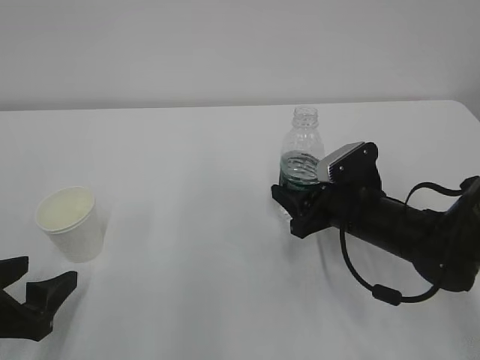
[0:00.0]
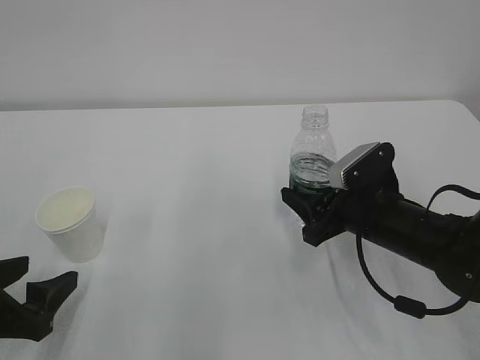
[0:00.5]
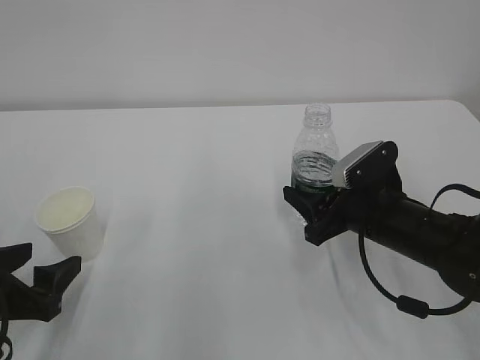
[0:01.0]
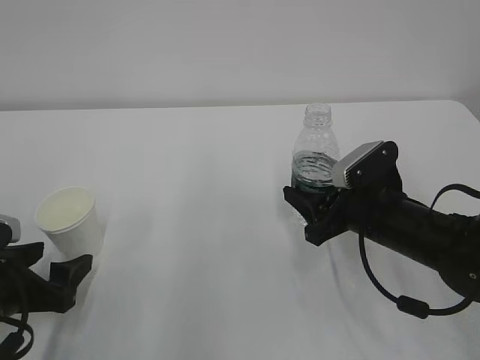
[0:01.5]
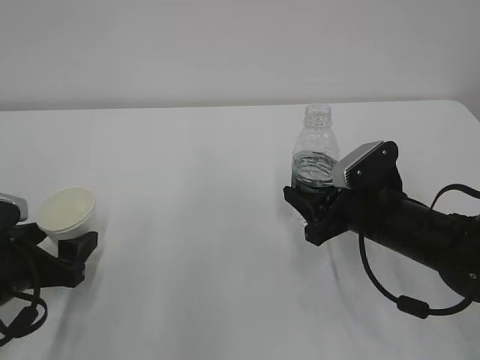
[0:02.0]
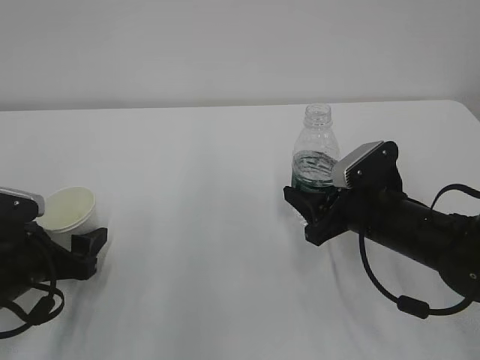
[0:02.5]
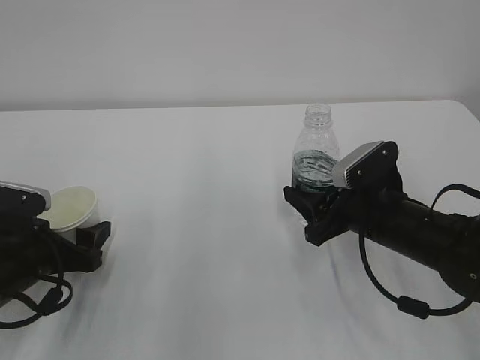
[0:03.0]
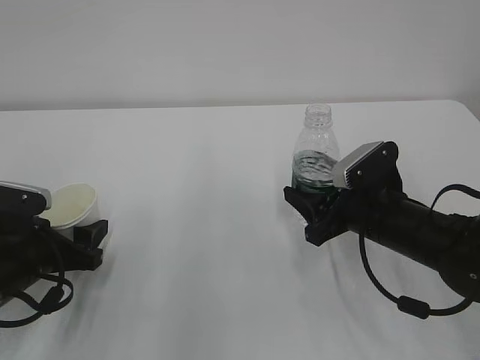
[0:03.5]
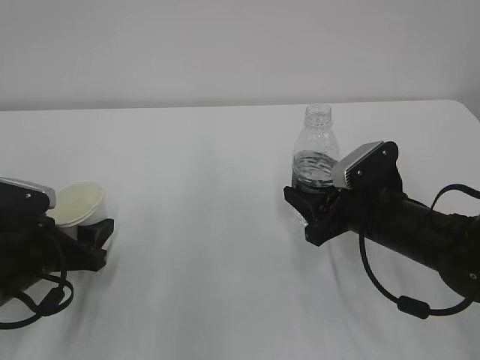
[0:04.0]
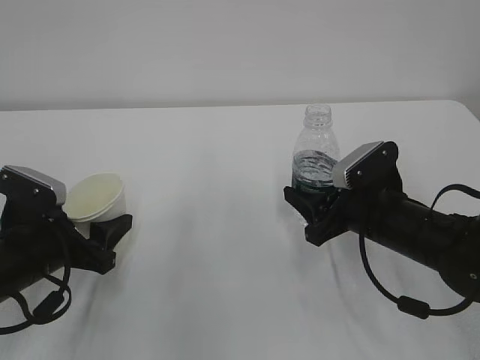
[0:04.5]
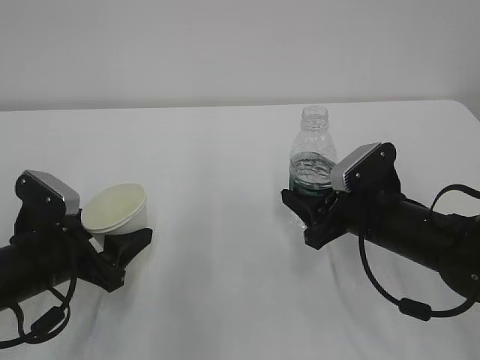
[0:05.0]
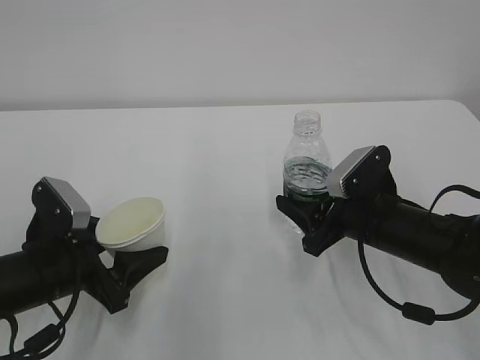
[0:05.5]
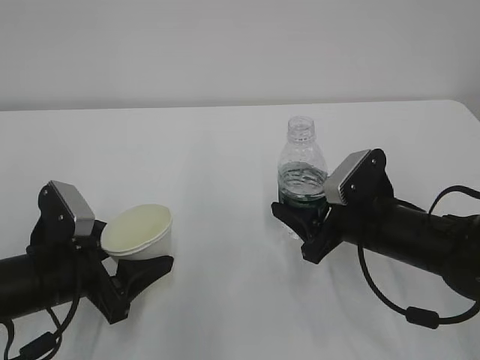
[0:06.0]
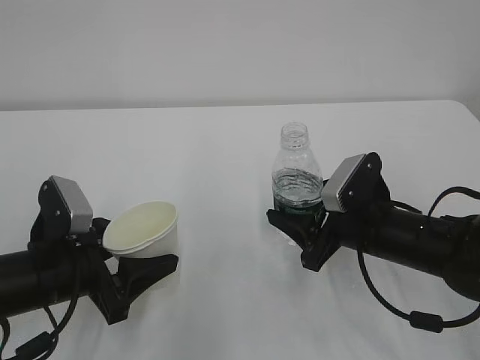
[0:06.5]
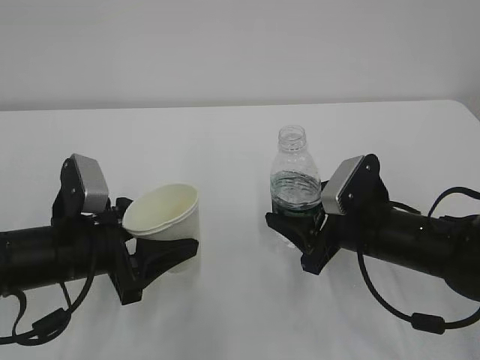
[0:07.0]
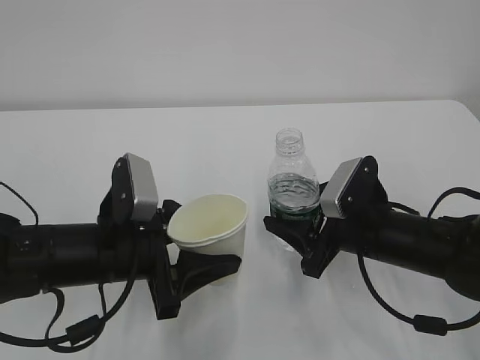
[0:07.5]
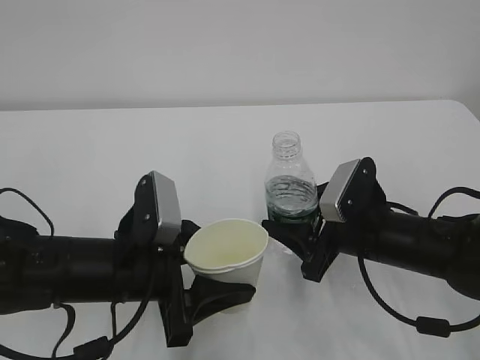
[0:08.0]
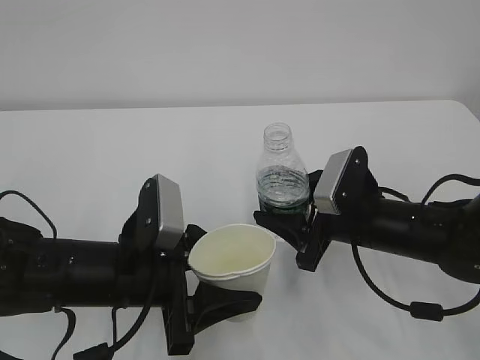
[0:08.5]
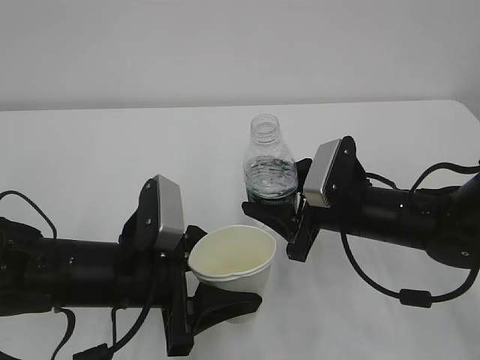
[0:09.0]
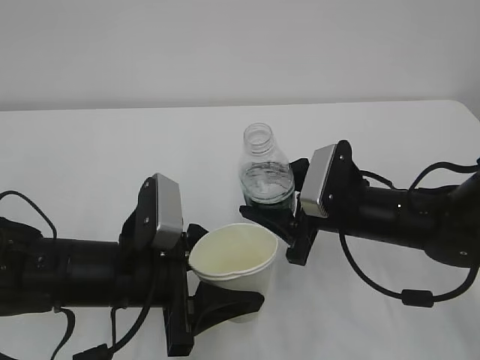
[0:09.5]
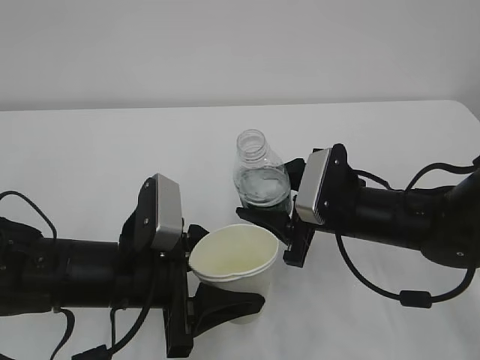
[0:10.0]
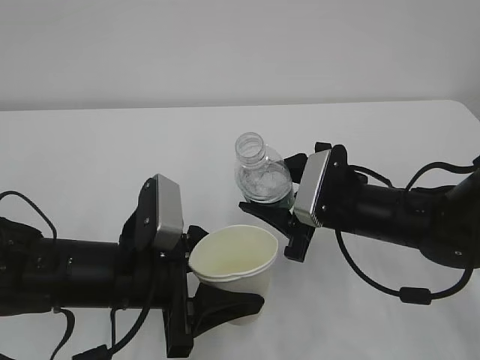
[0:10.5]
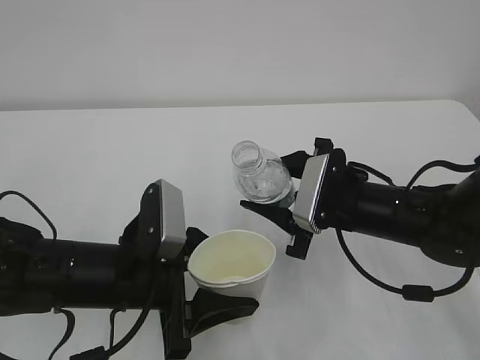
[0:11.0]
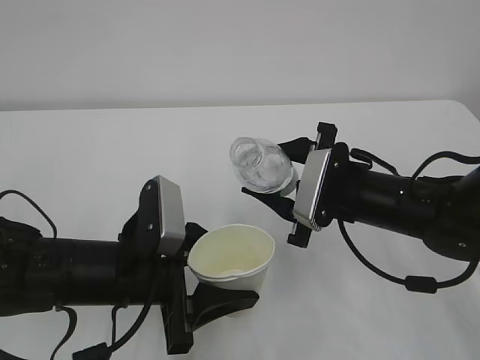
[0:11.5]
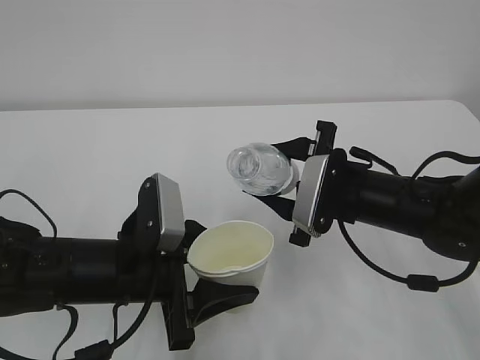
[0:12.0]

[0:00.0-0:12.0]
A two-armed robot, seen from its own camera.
0:00.0 to 0:02.0: The left gripper is displaced forward by some 5 cm.
0:02.0 to 0:04.0: The left gripper closes.
0:04.0 to 0:06.0: The left gripper shifts by roughly 5 cm.
0:06.0 to 0:08.0: The left gripper goes roughly 10 cm to the right.
0:08.0 to 0:10.0: The grippers make only small movements.

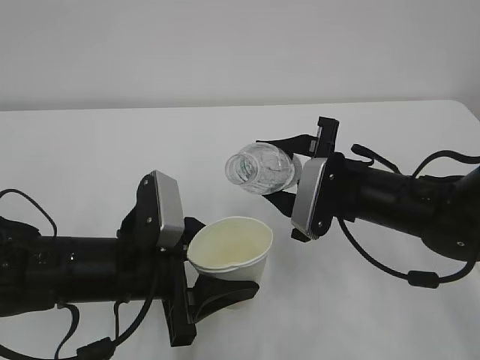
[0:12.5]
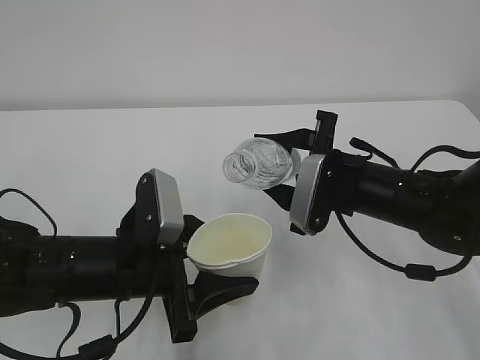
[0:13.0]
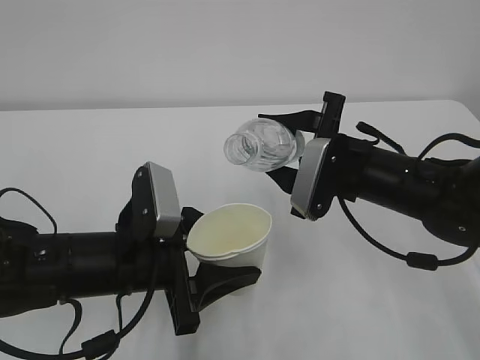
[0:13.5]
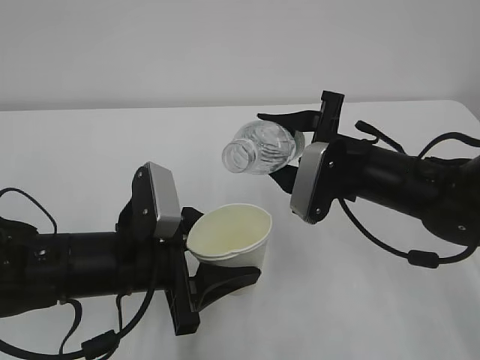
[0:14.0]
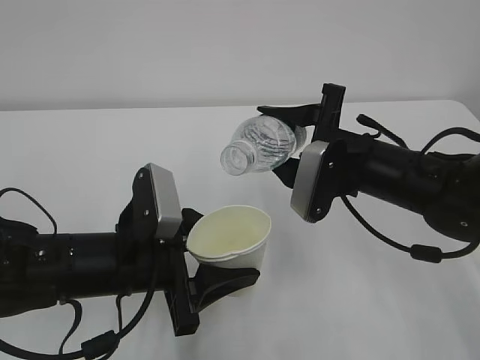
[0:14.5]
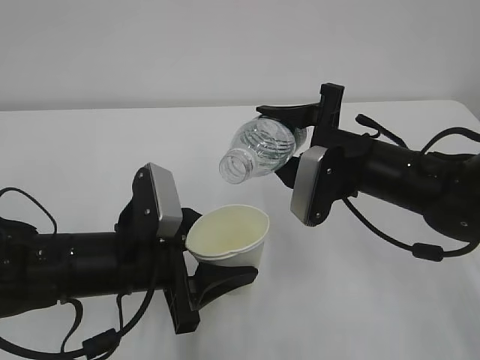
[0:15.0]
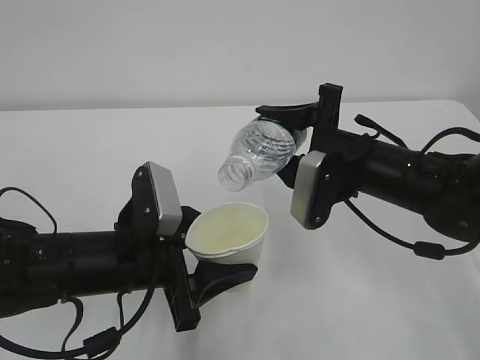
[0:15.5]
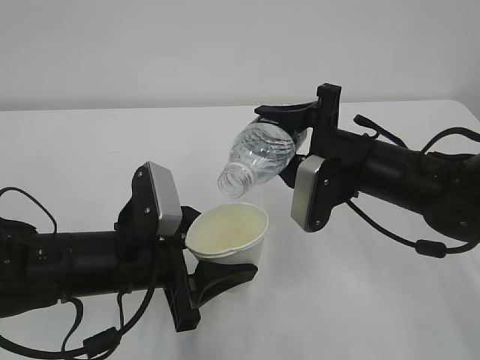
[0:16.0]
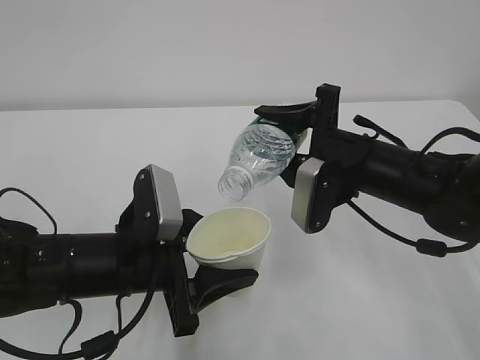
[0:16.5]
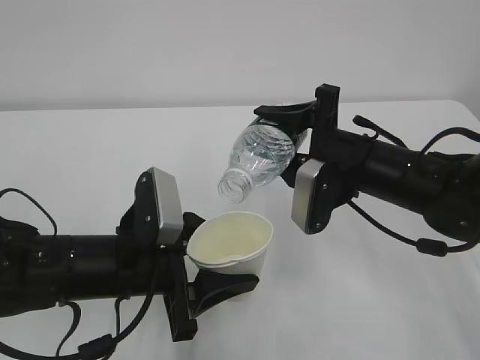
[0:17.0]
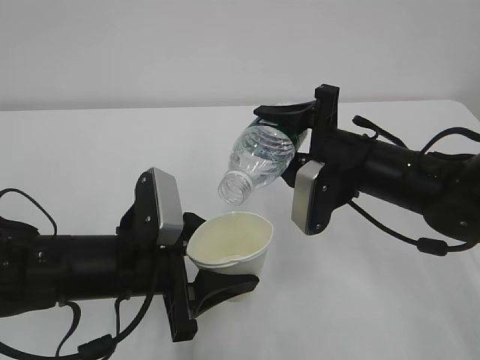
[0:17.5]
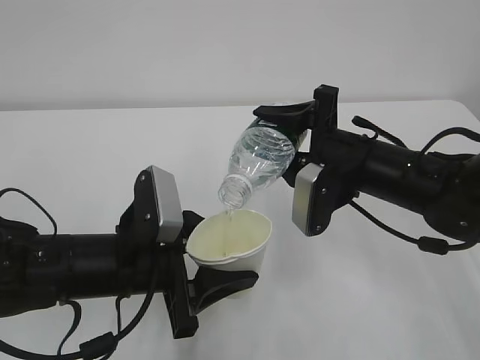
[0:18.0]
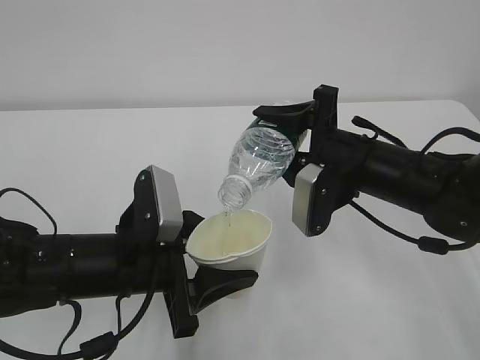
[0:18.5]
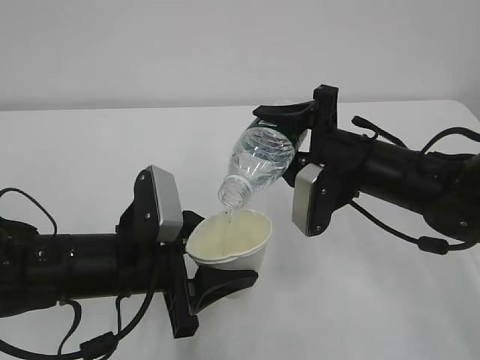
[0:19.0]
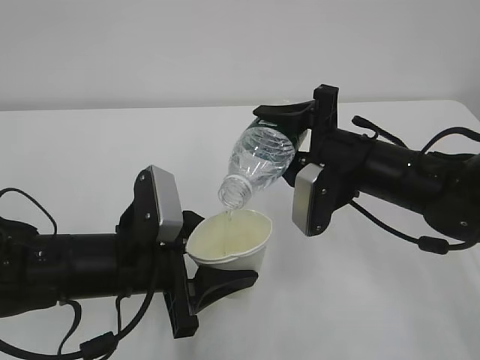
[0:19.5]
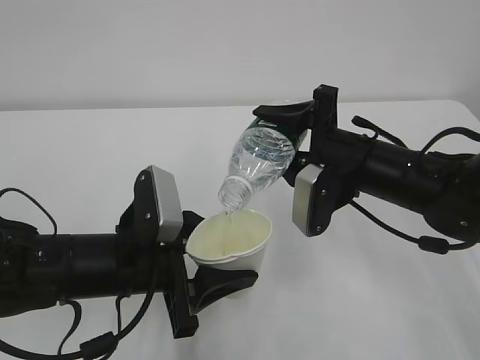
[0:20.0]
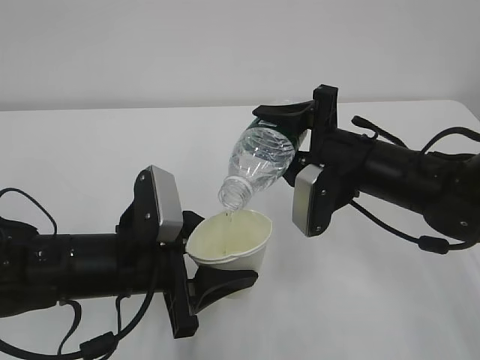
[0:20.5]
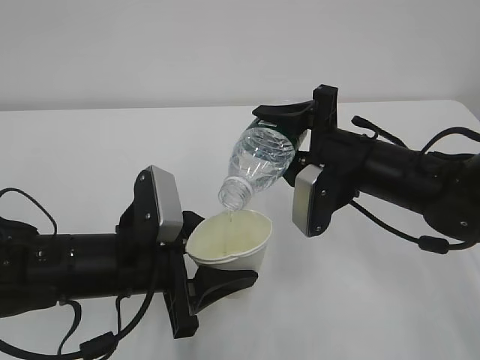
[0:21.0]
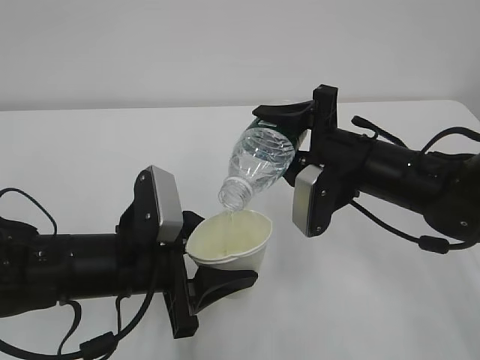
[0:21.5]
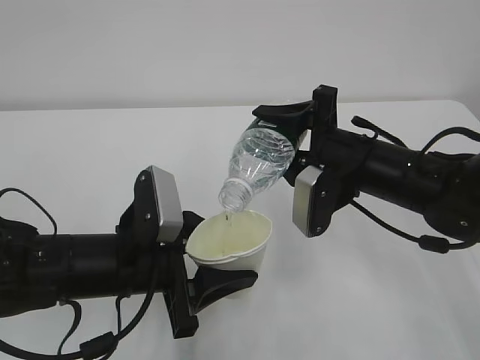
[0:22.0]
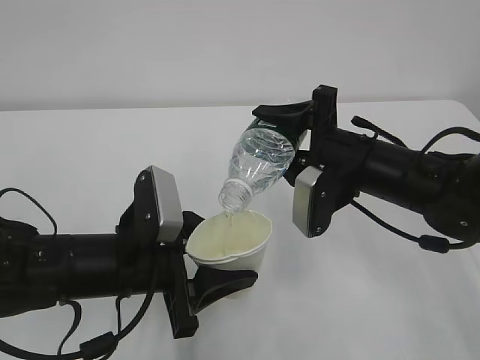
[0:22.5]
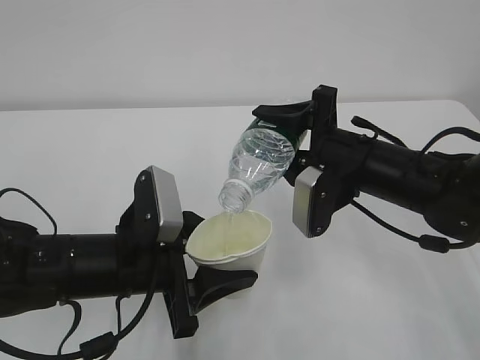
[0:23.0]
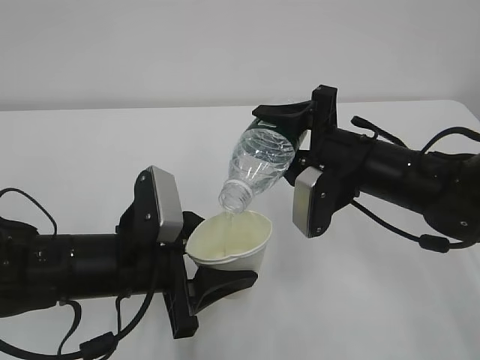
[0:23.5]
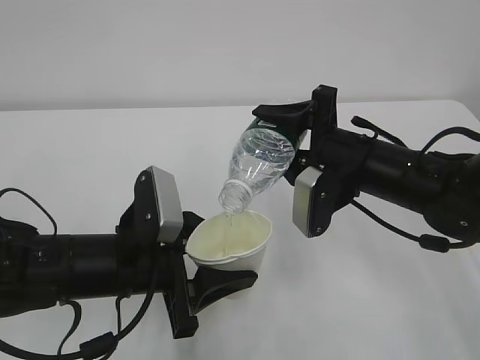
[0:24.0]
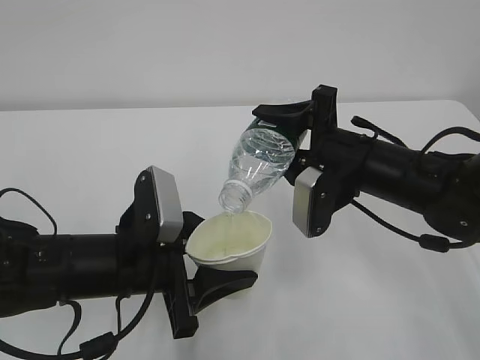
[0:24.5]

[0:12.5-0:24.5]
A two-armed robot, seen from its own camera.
0:12.5 to 0:14.5: The grippers stay close to where they were, moving slightly.
0:14.5 to 0:16.5: The grippers move only a little.
0:16.5 to 0:18.5: The two grippers keep their place.
0:18.5 to 0:24.5: Both grippers stay about where they are.

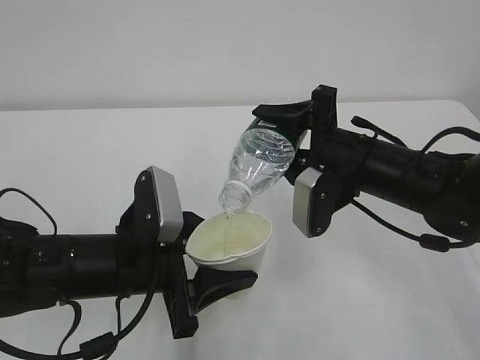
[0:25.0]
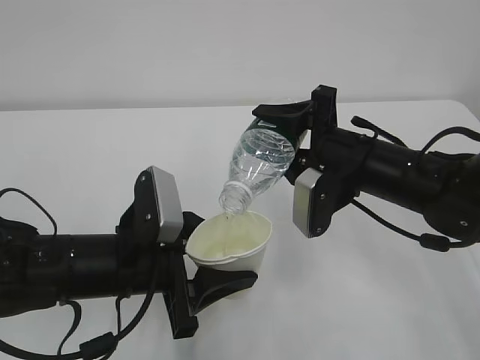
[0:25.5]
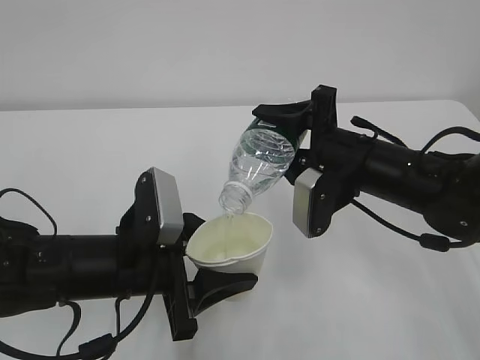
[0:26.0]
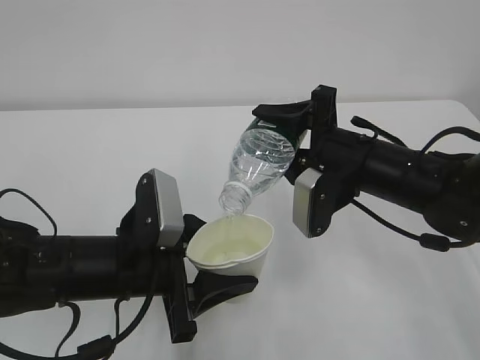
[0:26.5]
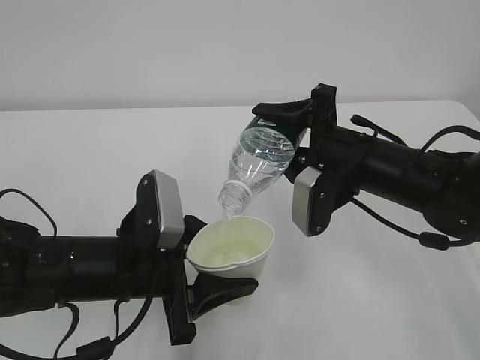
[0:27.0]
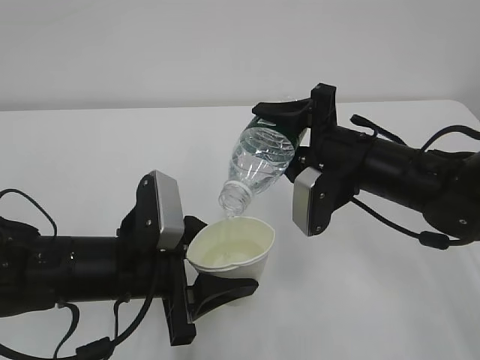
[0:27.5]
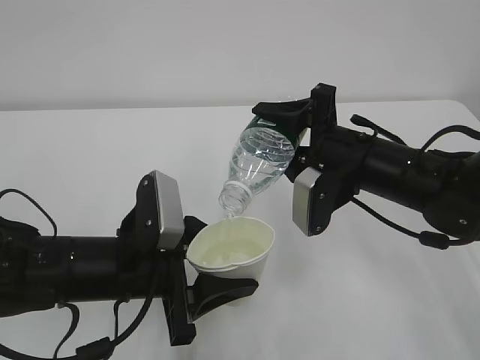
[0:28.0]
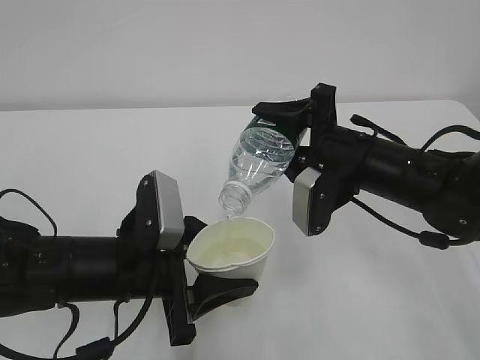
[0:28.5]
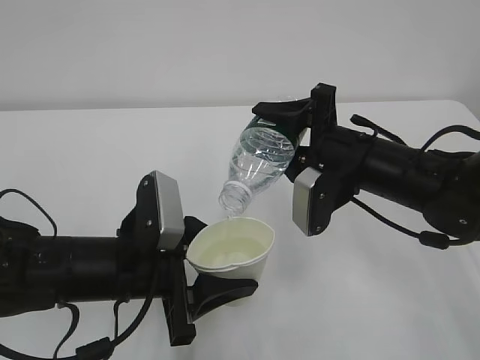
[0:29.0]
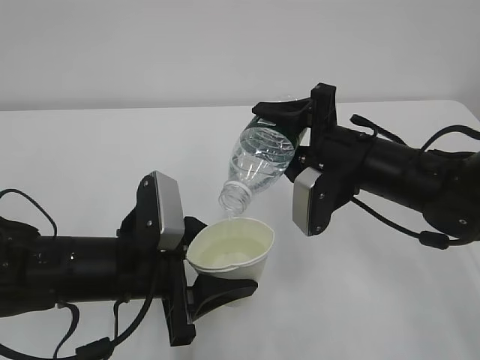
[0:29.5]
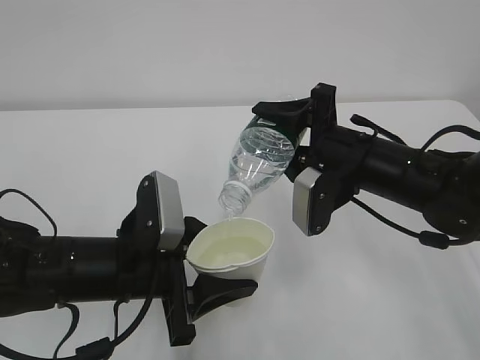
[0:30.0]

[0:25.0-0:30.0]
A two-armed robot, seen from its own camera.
0:25.0 to 0:30.0: The two grippers keep their place.
